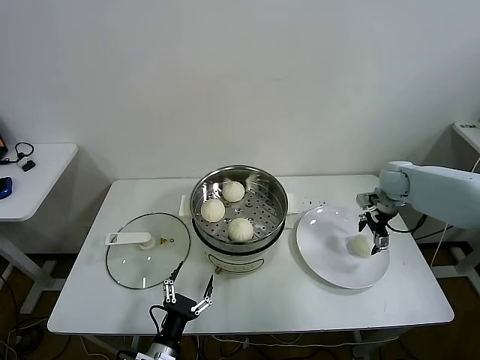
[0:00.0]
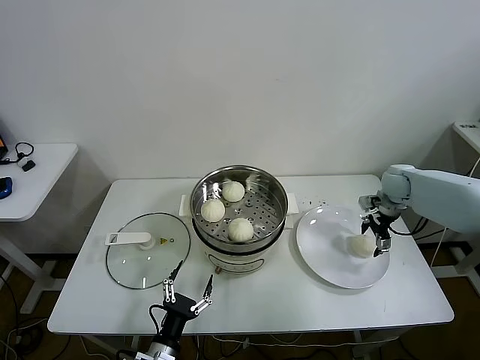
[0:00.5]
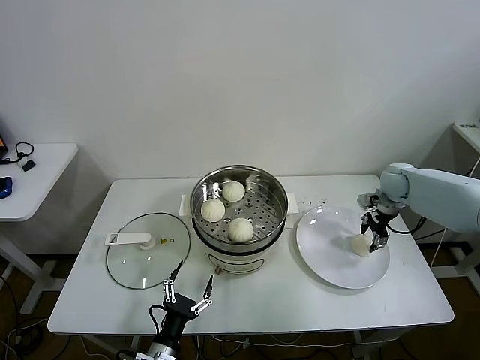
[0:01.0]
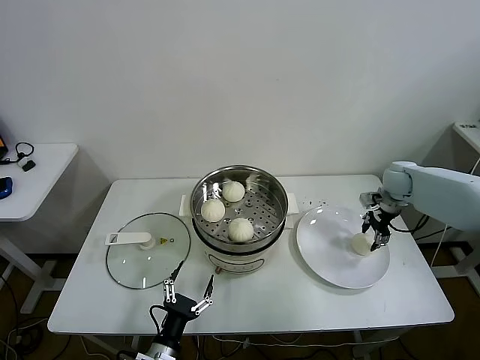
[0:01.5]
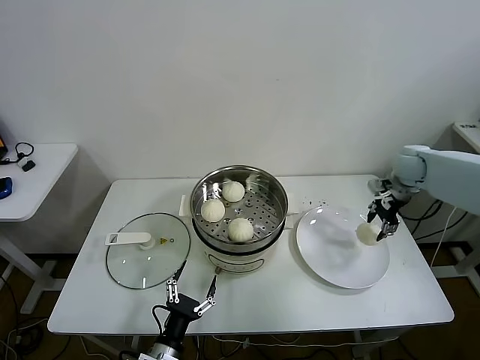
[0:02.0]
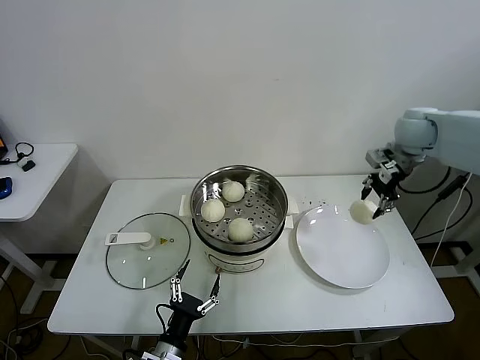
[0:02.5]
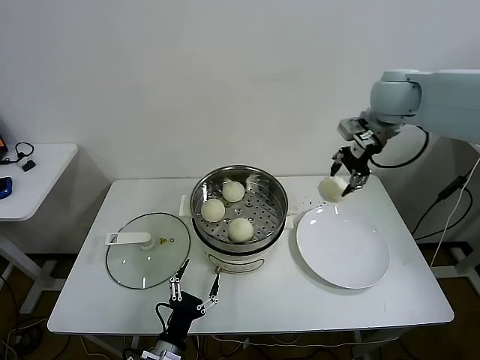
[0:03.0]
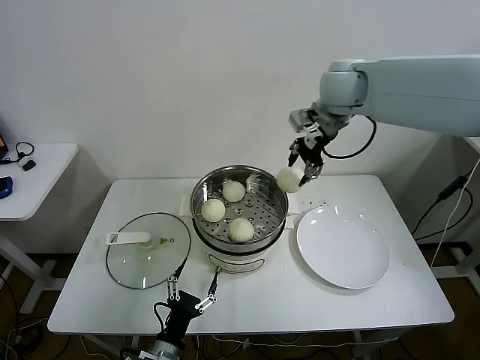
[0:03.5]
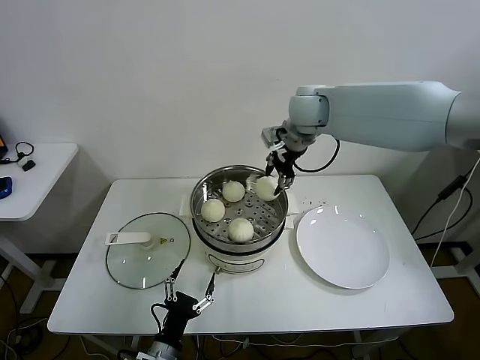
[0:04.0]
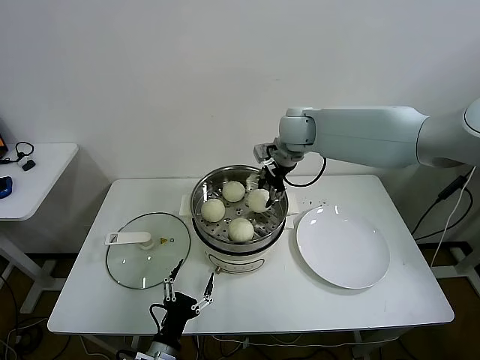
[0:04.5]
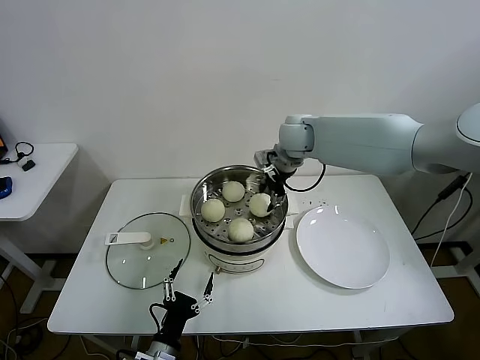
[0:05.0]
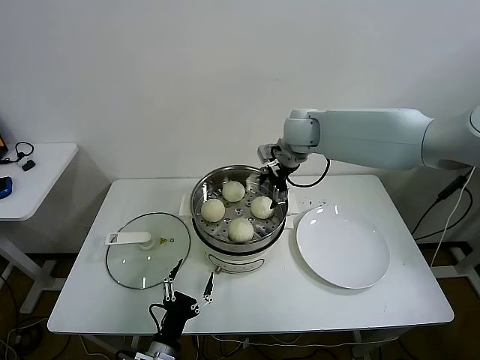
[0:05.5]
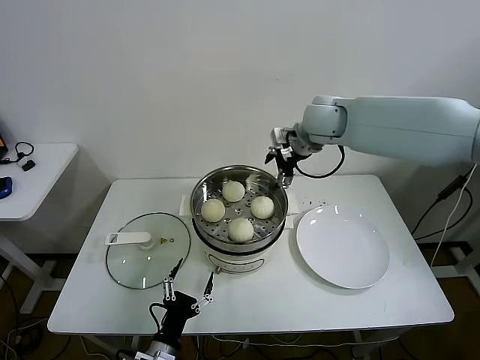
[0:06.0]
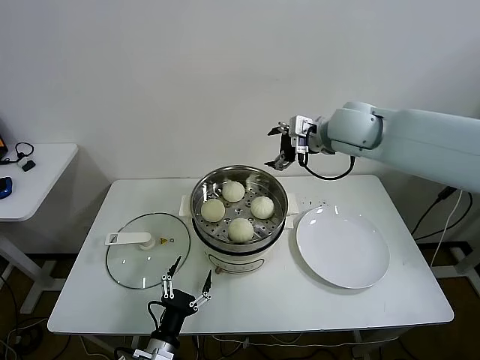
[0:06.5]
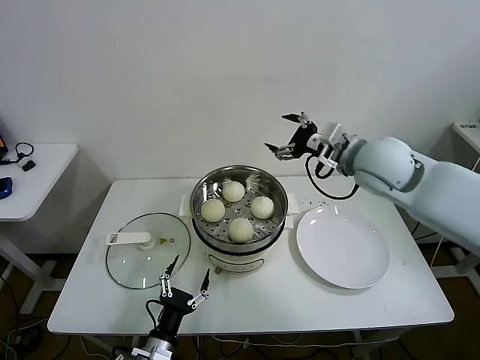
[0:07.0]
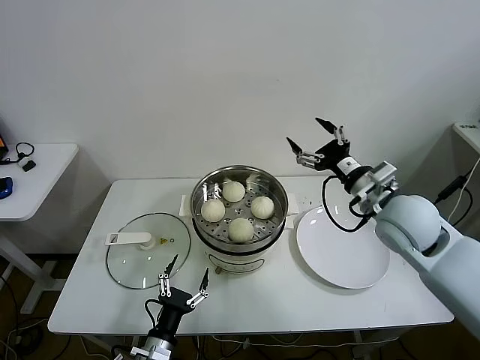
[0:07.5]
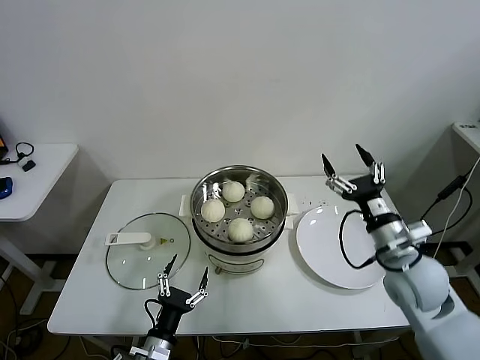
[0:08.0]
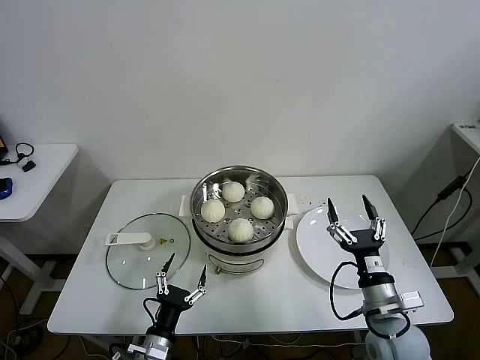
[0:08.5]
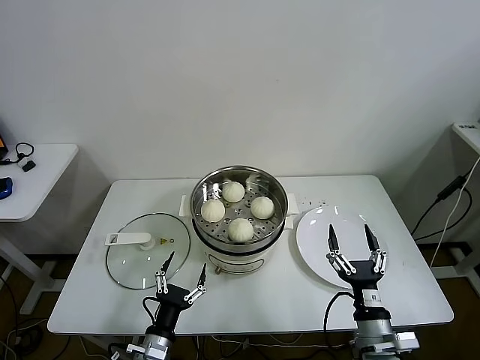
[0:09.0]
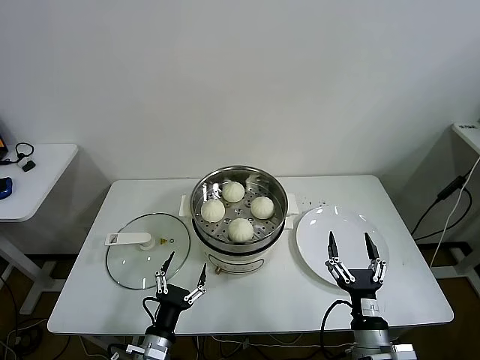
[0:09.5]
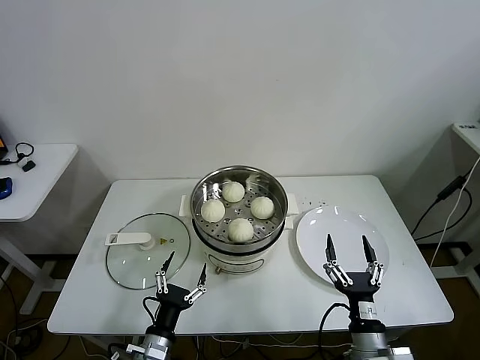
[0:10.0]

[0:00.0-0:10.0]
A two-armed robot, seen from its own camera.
Task of the whole recording: take steamed baozi put them in steamer.
Step, 0:01.5 to 0:05.0: Place the baozi on the steamer with right gripper.
0:00.0 to 0:02.0: The right gripper closes up.
0:02.0 to 0:04.0: The right gripper goes some 35 cm to the left and upward.
0:04.0 to 0:06.0: The right gripper goes downward and returns, roughly 10 cm each way, and opens its fingers.
0:06.0 to 0:08.0: The right gripper moves backward, downward and to the right, roughly 35 cm.
0:08.0 to 0:10.0: The right gripper travels backward, downward and to the left by approximately 25 cm.

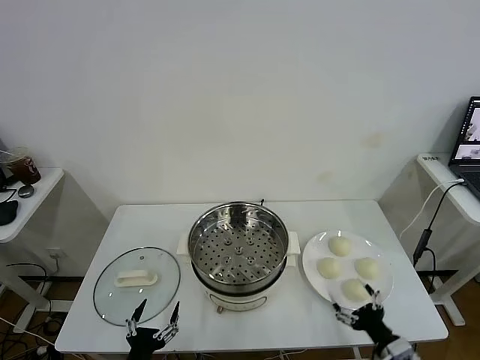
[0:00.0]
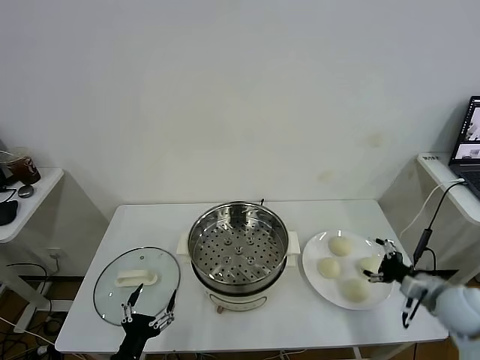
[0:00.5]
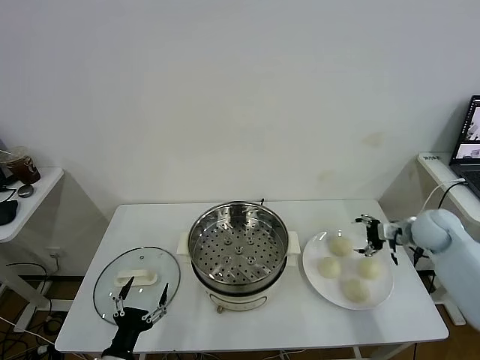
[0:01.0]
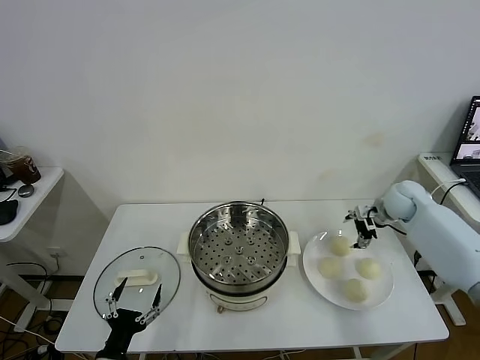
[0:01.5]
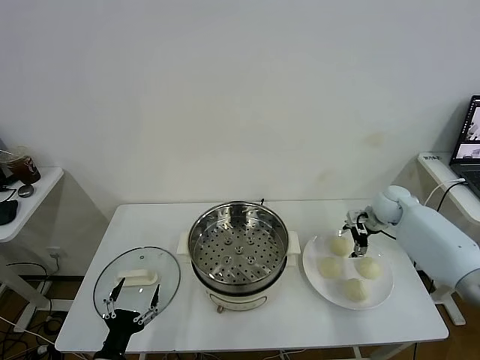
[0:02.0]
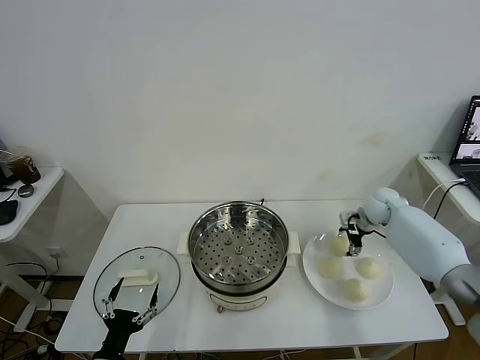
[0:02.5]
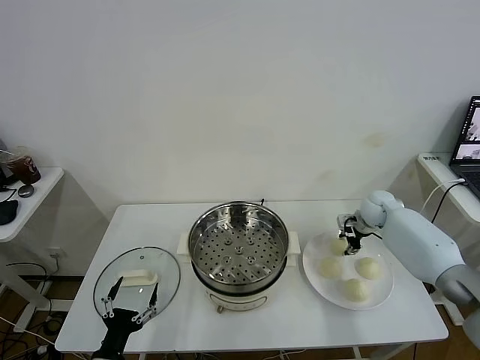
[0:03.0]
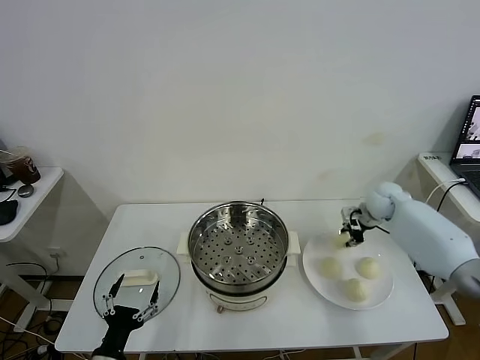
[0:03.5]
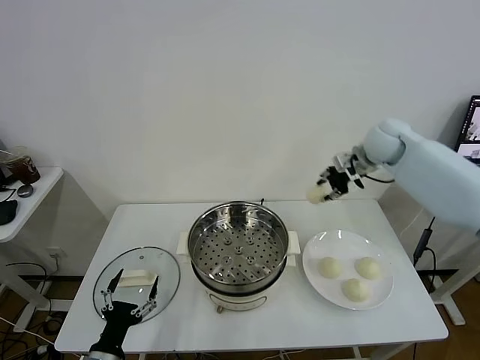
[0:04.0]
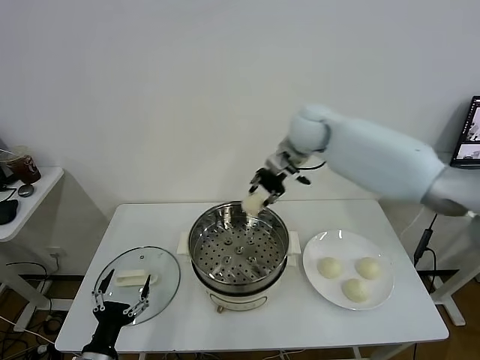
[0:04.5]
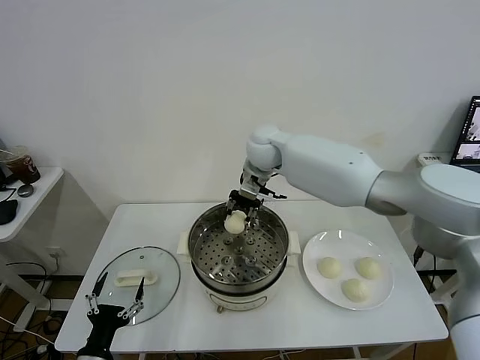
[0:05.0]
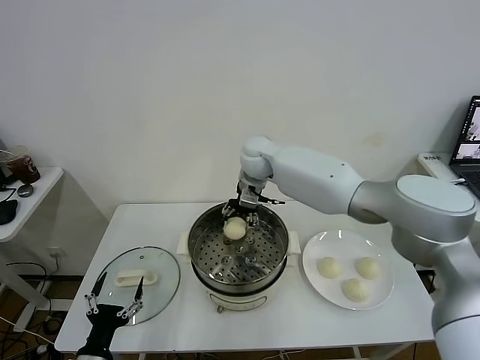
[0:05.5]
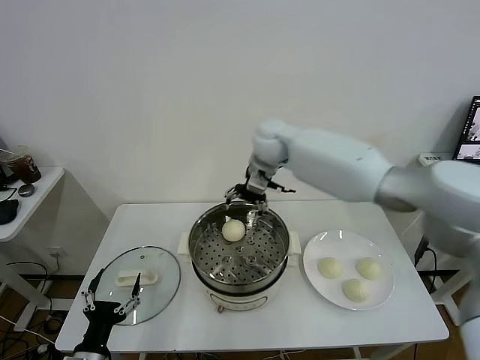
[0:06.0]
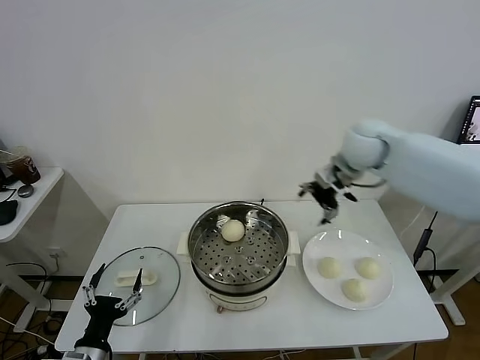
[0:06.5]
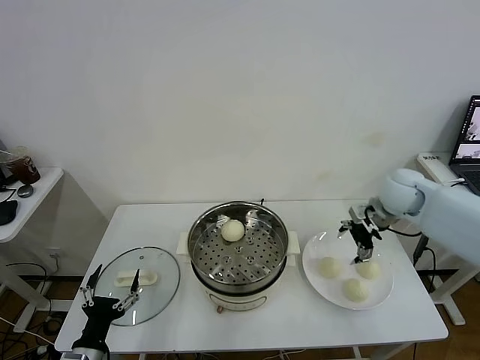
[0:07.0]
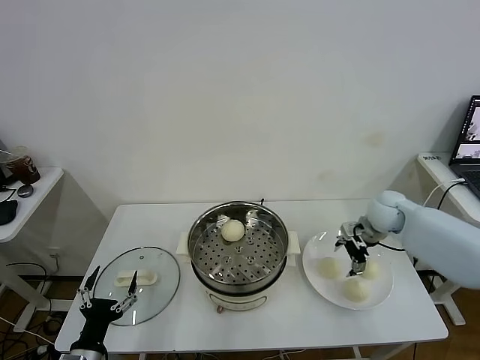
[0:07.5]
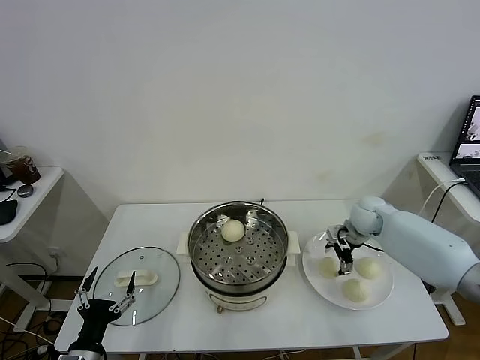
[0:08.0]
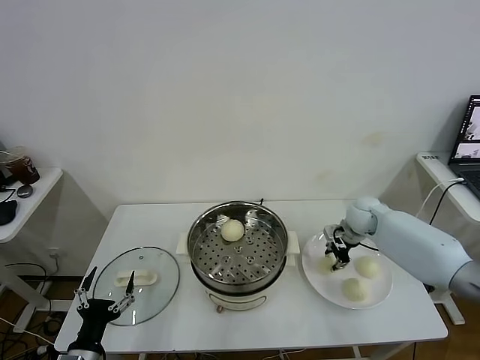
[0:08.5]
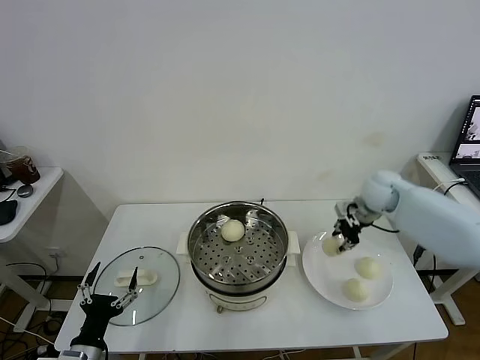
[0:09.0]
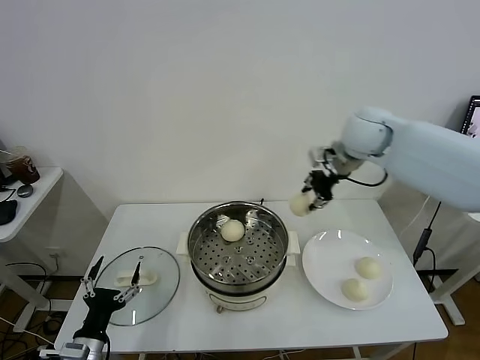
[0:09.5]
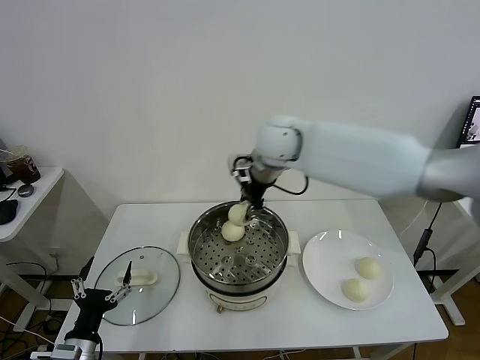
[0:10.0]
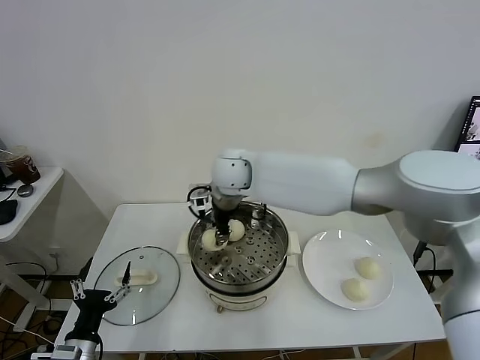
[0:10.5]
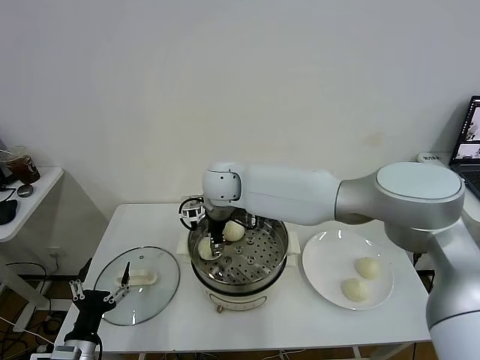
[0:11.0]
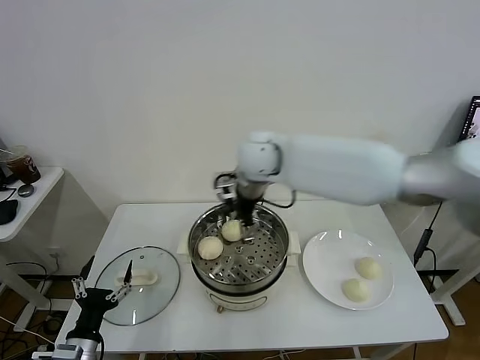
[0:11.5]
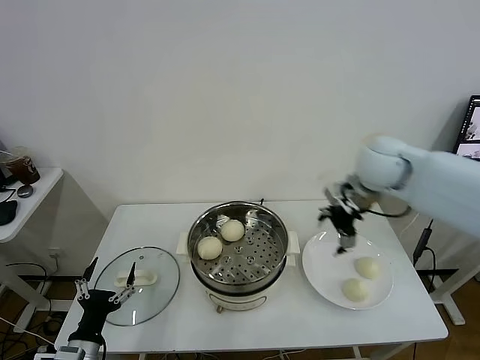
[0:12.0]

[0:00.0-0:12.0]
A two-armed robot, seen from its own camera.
Task of the whole recording: take steamed baozi put them in steamer.
Step, 0:00.0 to 0:03.0: Grasp the baozi in the plate with right gripper.
Step, 0:03.5 to 0:05.5: Place the baozi on the steamer with right gripper.
Step, 0:06.0 to 0:08.5: Grasp the baozi in the plate with right gripper.
Step, 0:09.0 to 0:11.0: Place the baozi on the steamer with right gripper.
0:02.0 to 0:04.0: The right gripper heads upward and to the left, covering some 25 cm, and closes.
0:04.0 to 0:06.0: The right gripper is displaced to the left by roughly 20 cm, and opens.
0:06.0 to 0:08.0: The right gripper shifts approximately 30 cm to the right and downward.
0:08.0 to 0:10.0: The right gripper heads to the left and upward, covering roughly 35 cm, and closes.
0:10.0 to 0:12.0: The right gripper heads to the right, covering about 25 cm, and opens up.

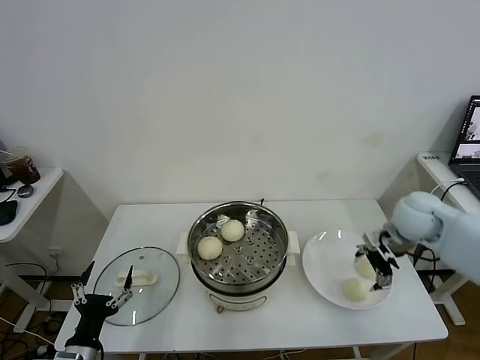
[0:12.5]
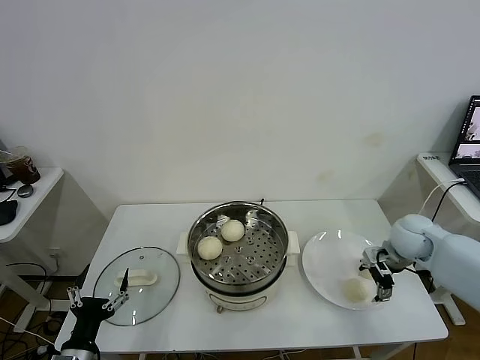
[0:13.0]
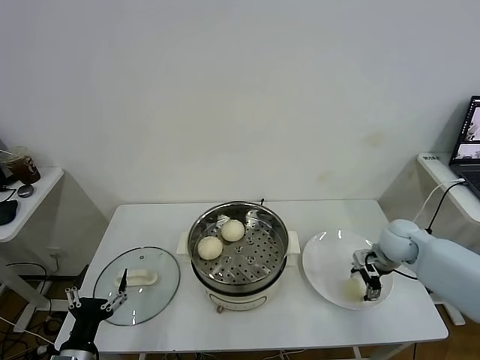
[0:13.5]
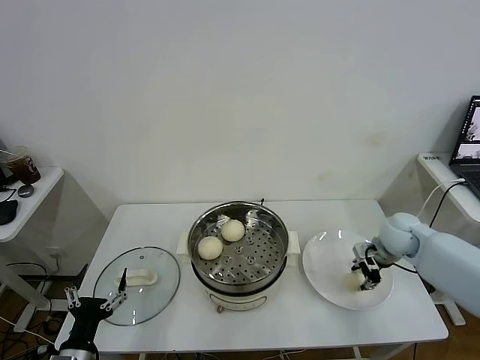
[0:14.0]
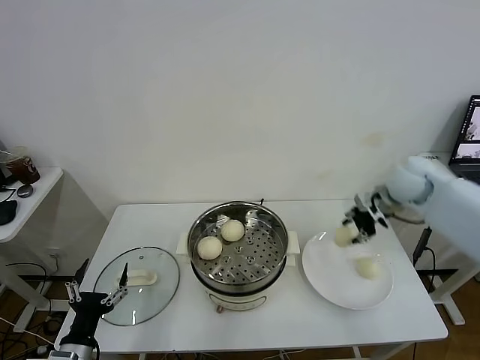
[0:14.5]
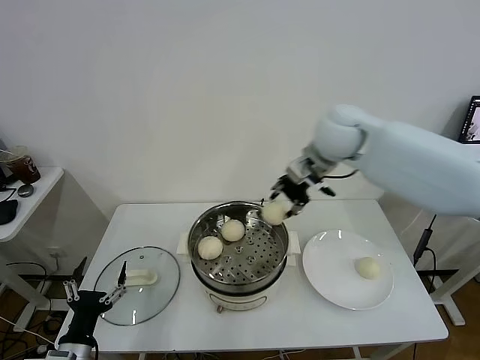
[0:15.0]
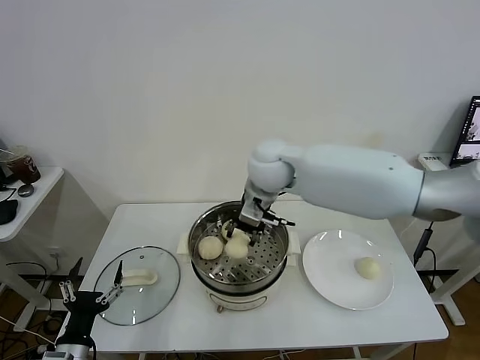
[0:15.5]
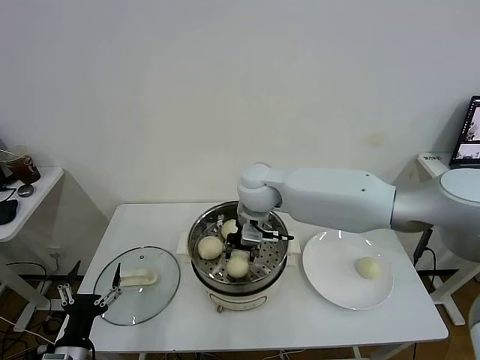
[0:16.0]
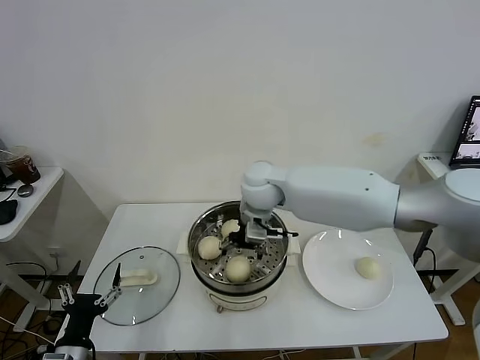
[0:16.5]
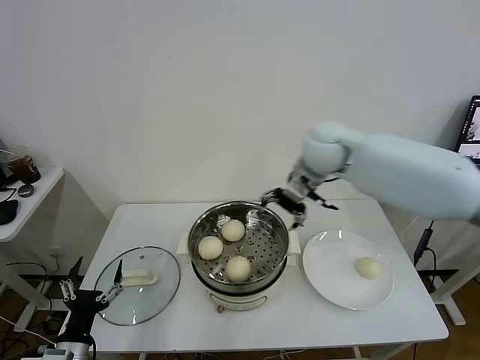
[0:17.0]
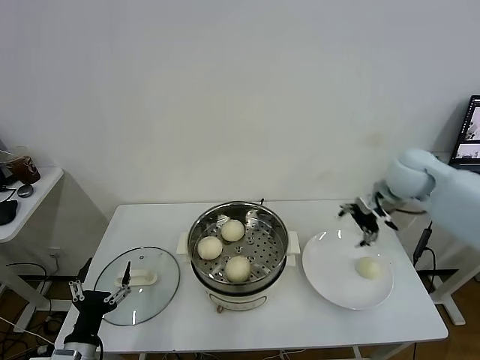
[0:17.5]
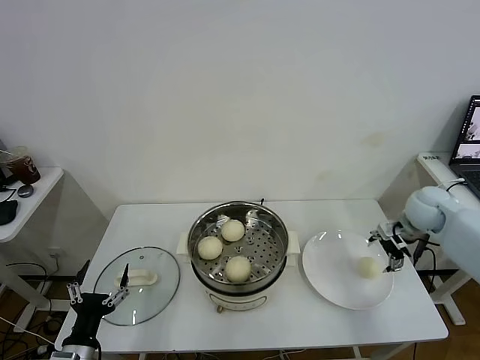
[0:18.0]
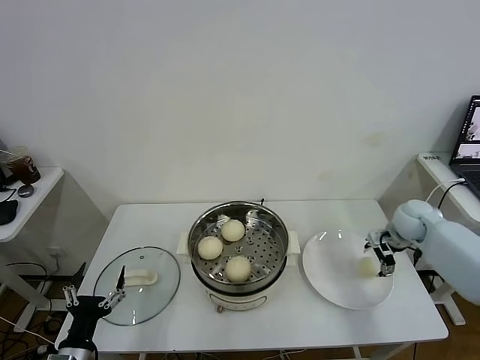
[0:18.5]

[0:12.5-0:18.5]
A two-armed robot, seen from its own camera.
Task of the whole recording: take steamed baozi put them in steamer.
Step, 0:14.0 to 0:16.5: Place the baozi on the steamer with right gripper.
0:12.5 to 0:14.5: The right gripper moves upward and forward, roughly 10 cm, and closes its fingers.
0:14.5 to 0:16.5: The right gripper shifts some 30 cm to the left, and opens its fingers.
0:16.5 to 0:18.5: The right gripper goes some 40 cm to the right.
